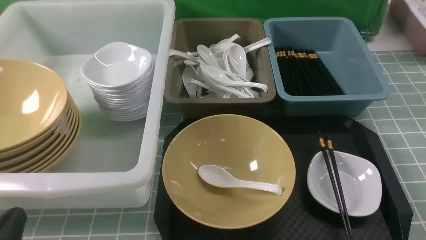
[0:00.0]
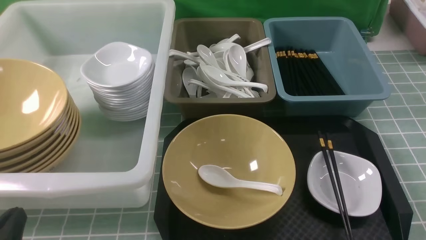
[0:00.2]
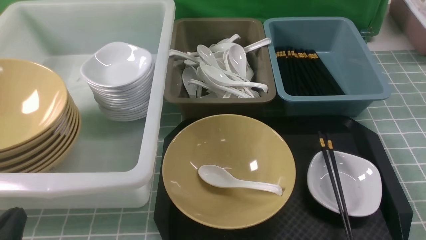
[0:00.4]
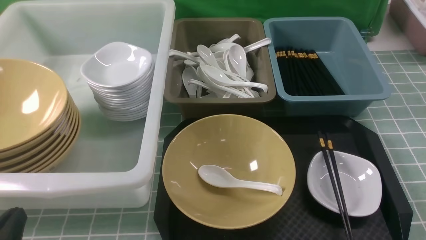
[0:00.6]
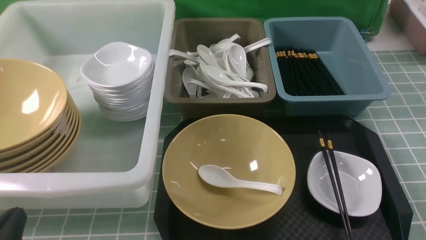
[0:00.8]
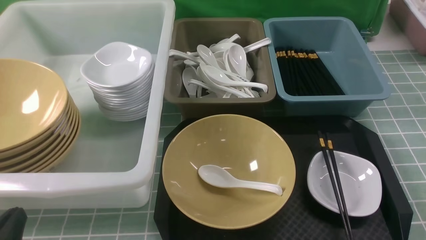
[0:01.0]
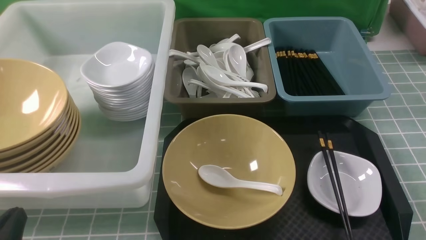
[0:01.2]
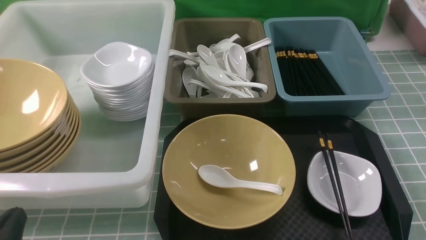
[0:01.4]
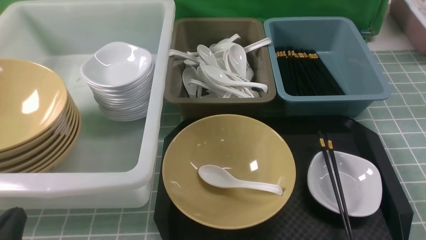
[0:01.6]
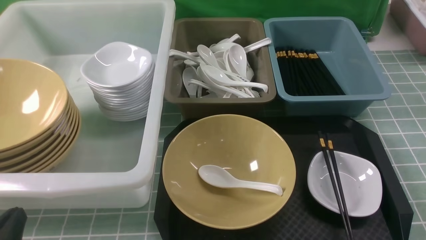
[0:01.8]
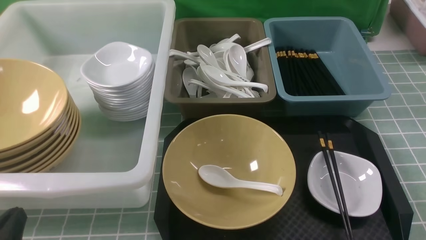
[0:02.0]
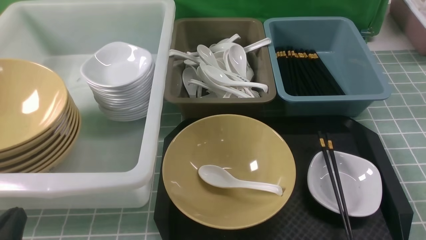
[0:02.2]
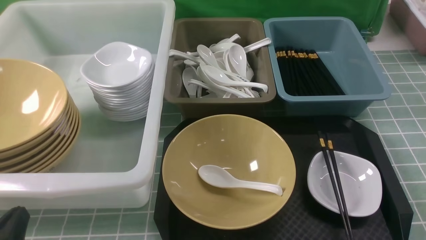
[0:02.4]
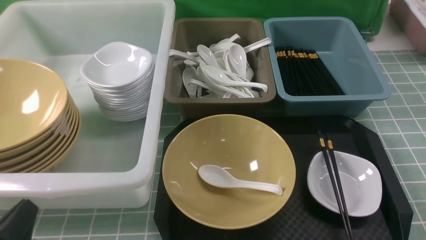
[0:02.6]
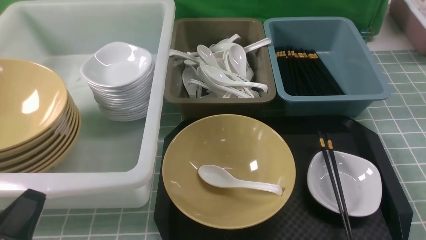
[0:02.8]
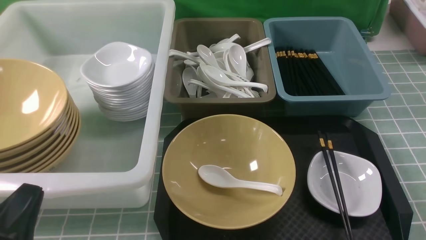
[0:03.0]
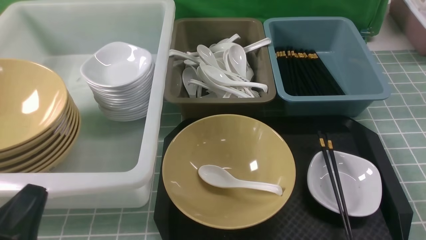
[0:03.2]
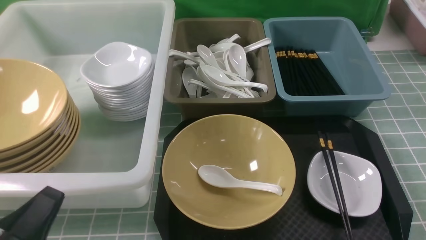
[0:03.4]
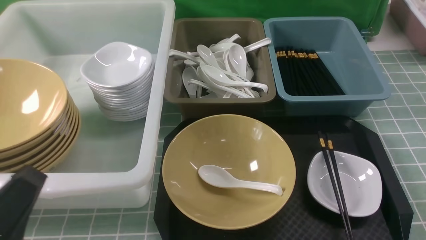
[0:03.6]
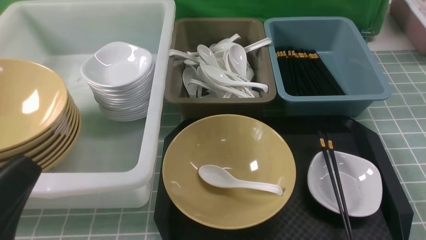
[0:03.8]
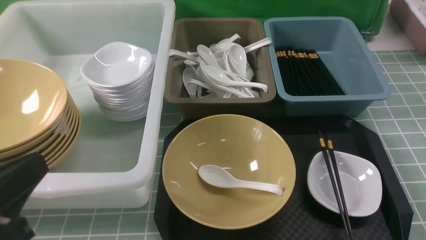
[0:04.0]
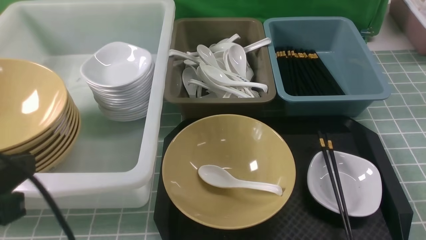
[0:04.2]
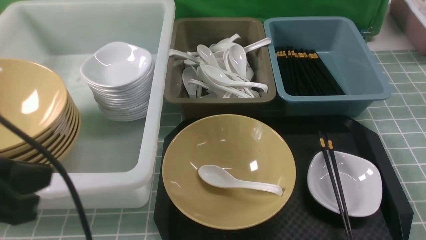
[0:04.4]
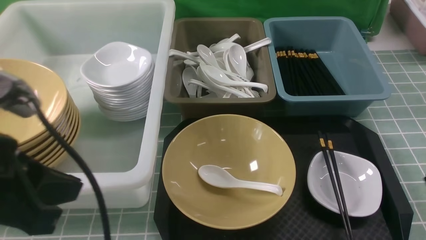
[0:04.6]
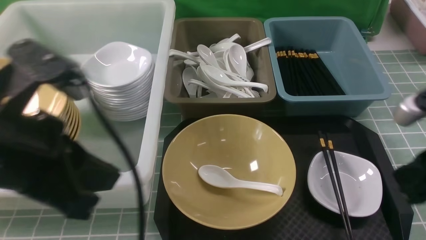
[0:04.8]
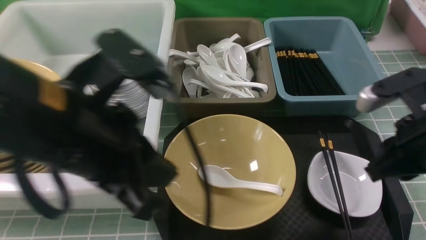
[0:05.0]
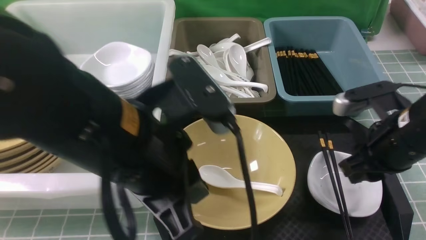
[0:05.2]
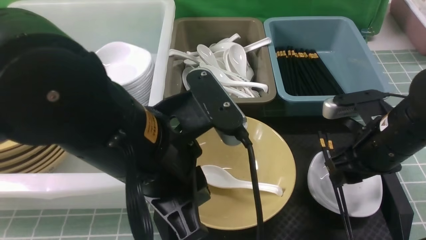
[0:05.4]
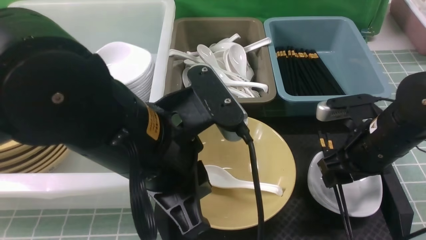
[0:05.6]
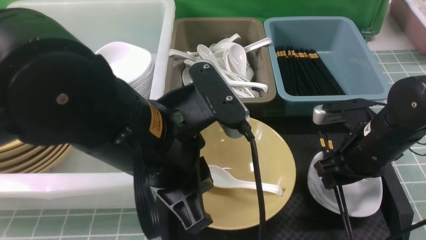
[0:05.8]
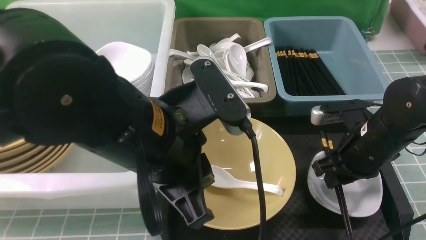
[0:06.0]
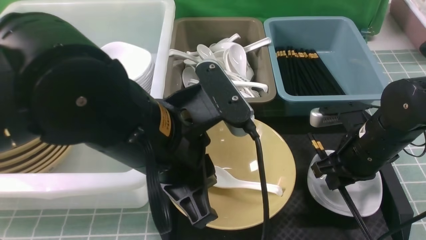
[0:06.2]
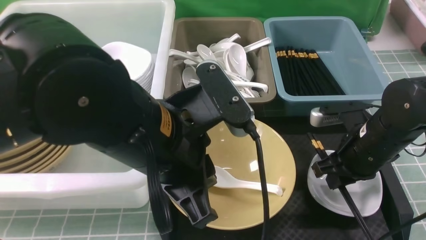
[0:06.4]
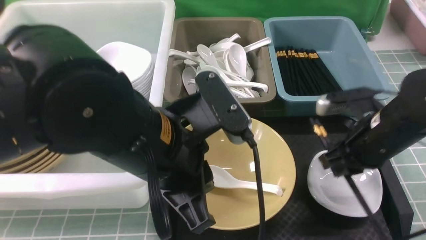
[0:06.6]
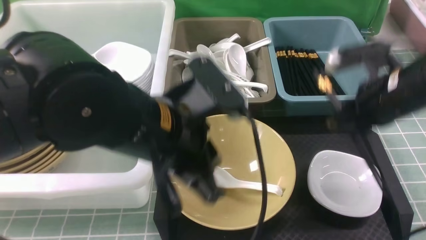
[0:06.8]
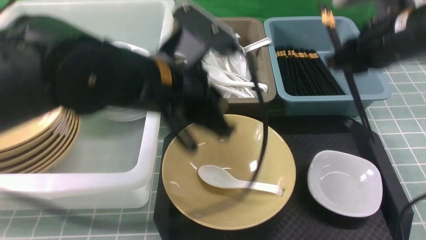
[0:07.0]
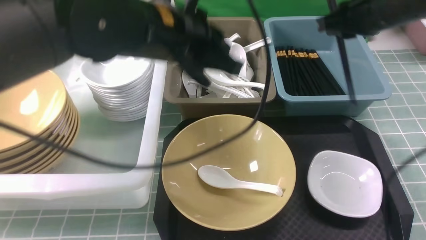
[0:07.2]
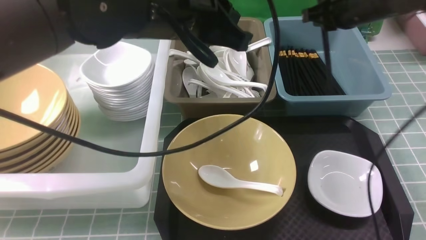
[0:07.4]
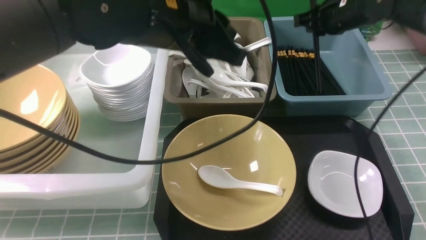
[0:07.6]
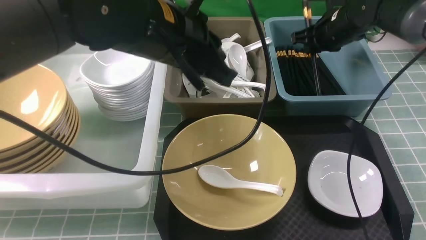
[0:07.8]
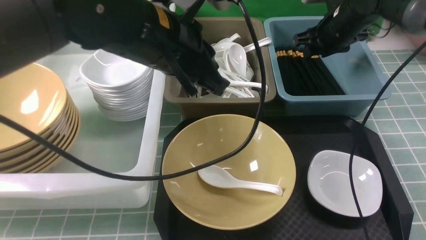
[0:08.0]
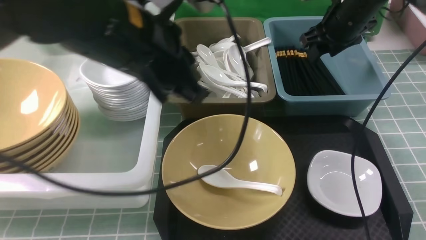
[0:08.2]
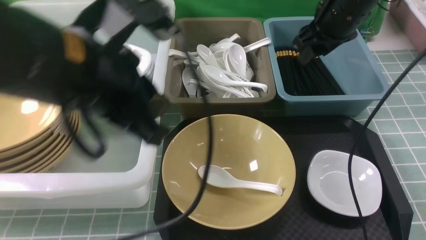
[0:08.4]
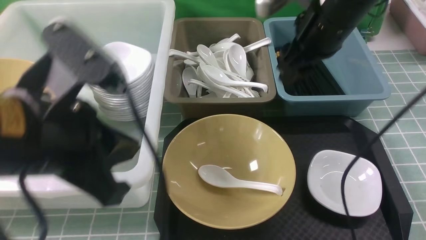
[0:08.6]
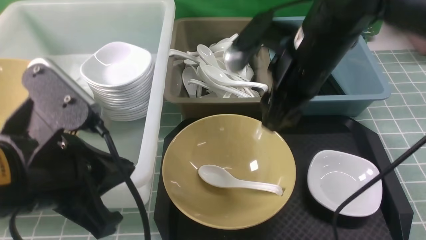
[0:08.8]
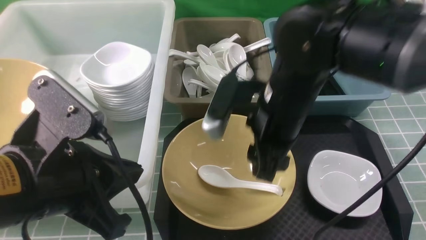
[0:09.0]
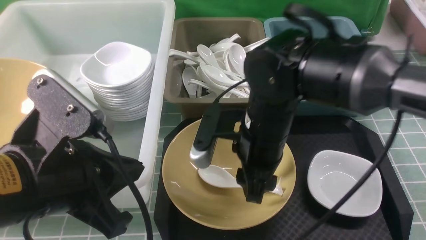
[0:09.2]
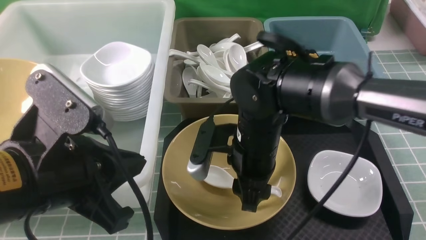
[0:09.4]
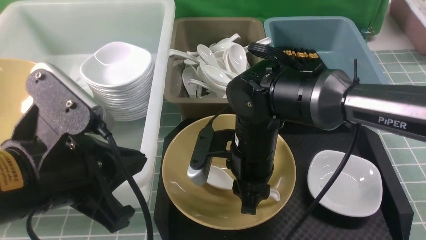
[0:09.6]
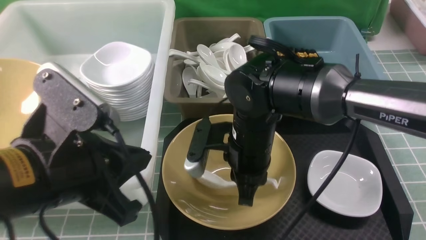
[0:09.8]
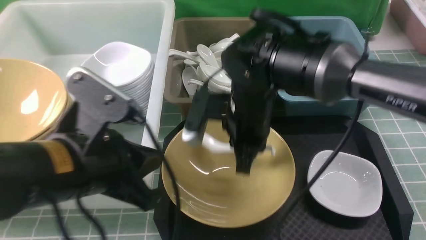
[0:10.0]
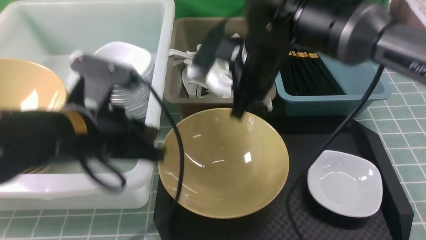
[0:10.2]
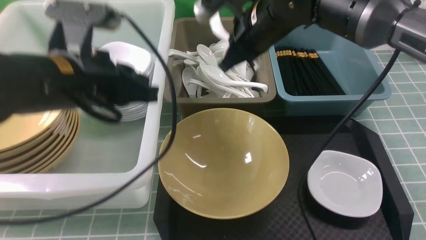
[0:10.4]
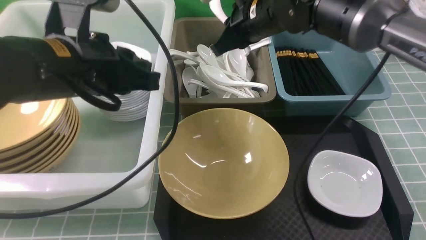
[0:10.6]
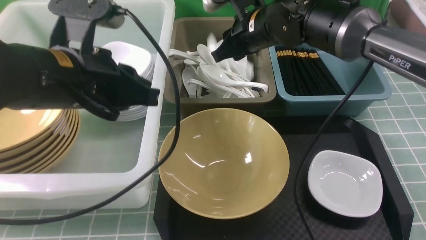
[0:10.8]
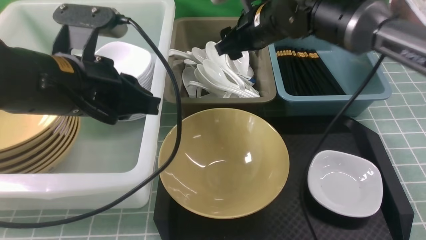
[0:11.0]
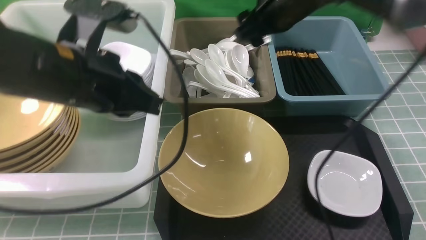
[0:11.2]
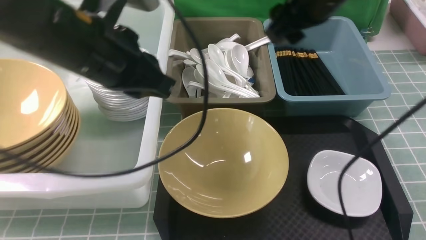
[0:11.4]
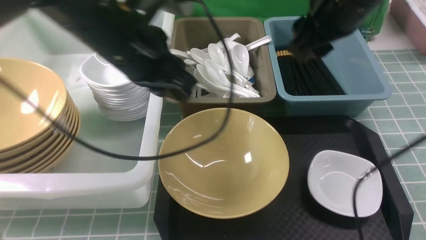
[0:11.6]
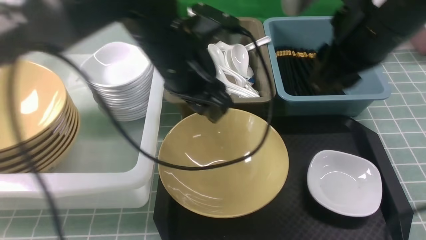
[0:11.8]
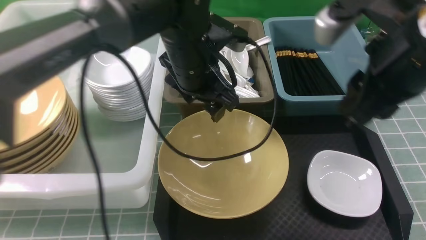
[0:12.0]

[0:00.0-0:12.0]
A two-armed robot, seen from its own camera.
Task of the whole recording: on blue table put chopsticks spoon bowls plates into blue grey white boxes.
Step, 0:00.0 to 0:06.4: use the right arm to grab the chopsticks.
Step, 0:06.6 to 0:08.0: use the right arm to put the chopsticks into the small storage box on the right.
Step, 0:08.2 to 0:09.8: use the right arm to grab the soup spoon in the middle.
Step, 0:10.2 to 0:10.8: use the right arm to put the soup spoon into the small storage box in the middle.
0:00.0 to 0:01.6: Neither gripper changes place.
0:03.0 to 0:04.4: The left gripper is displaced upward by some 15 cm.
0:04.4 to 0:06.0: The left gripper goes roughly 15 cm to the right. Meanwhile the right gripper shifts some 20 cm forward and downward, and opens up.
0:06.0 to 0:07.6: The right gripper goes roughly 20 cm forward and upward, while the left gripper shifts roughly 10 cm forward.
0:07.6 to 0:09.0: The grippers both shift backward and to the left by about 20 cm. The right gripper opens up.
0:09.0 to 0:10.4: Both grippers move forward, roughly 10 cm. The right gripper closes up.
0:10.4 to 0:12.0: The left gripper goes about 15 cm to the right and forward, and opens; the right gripper heads backward, to the right and upward, covering about 20 cm, and opens up.

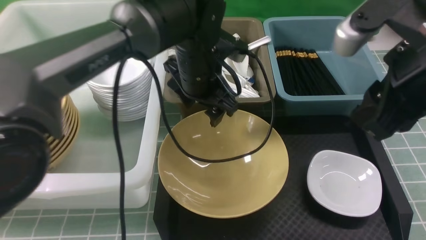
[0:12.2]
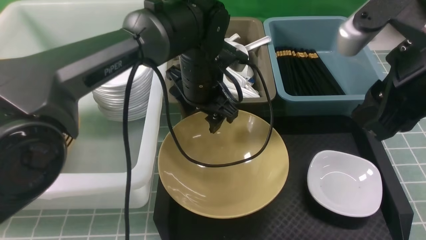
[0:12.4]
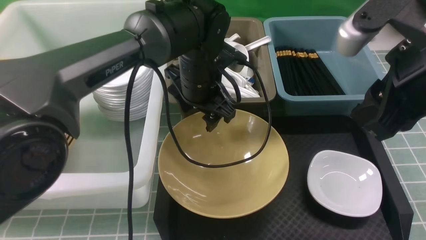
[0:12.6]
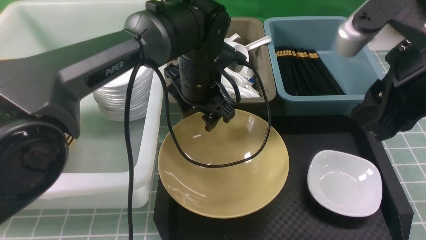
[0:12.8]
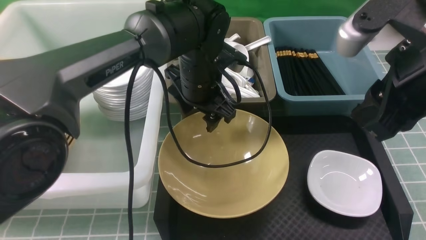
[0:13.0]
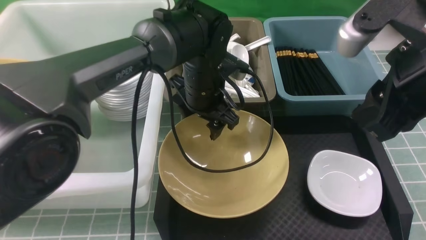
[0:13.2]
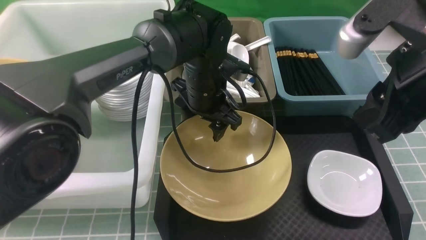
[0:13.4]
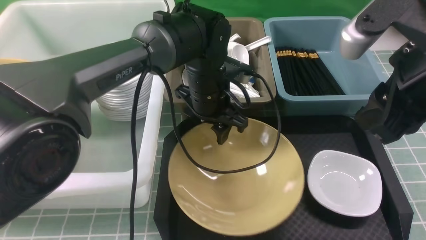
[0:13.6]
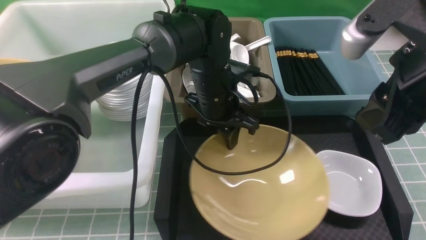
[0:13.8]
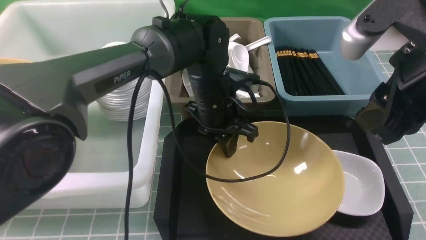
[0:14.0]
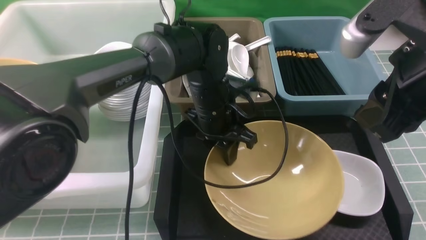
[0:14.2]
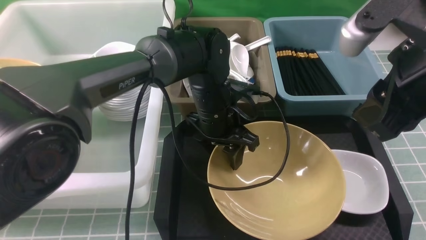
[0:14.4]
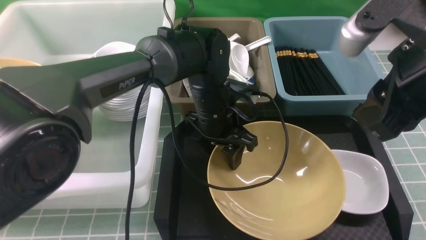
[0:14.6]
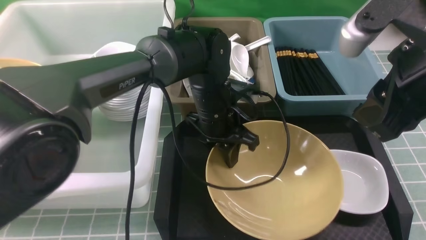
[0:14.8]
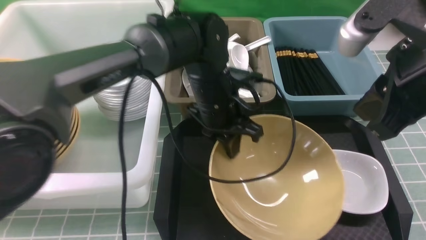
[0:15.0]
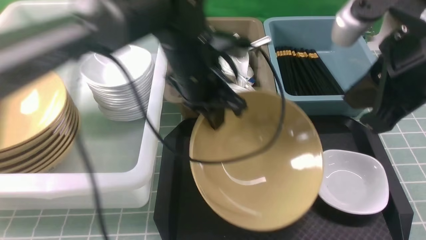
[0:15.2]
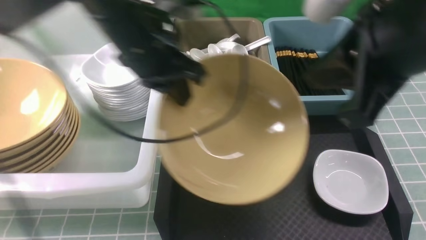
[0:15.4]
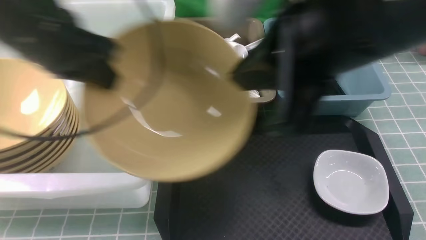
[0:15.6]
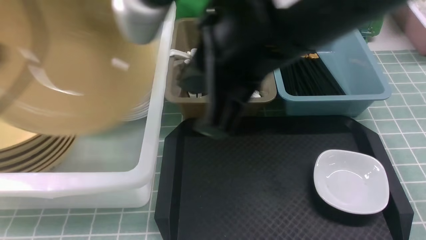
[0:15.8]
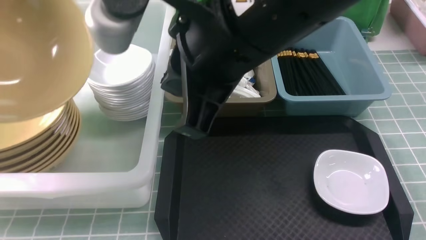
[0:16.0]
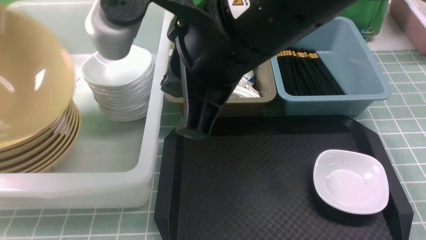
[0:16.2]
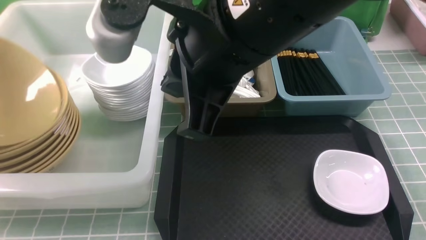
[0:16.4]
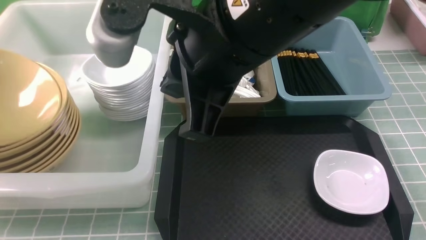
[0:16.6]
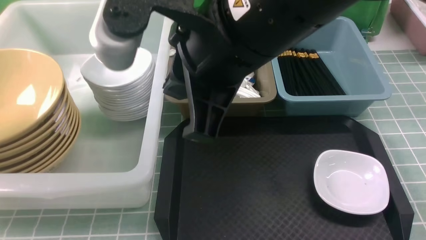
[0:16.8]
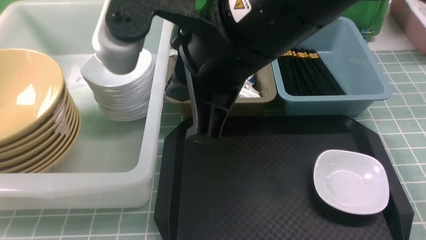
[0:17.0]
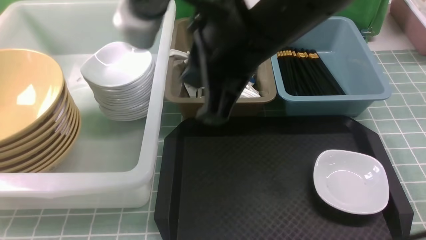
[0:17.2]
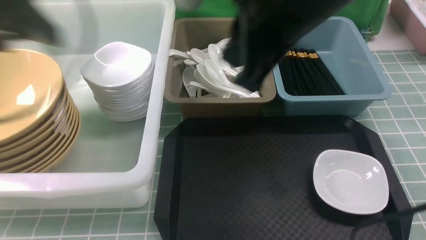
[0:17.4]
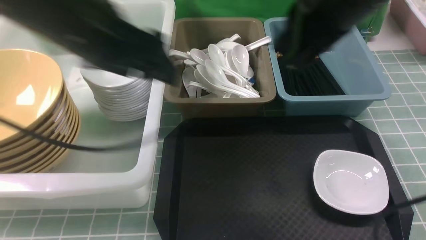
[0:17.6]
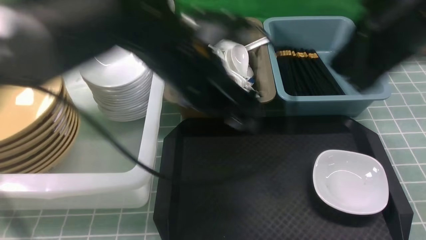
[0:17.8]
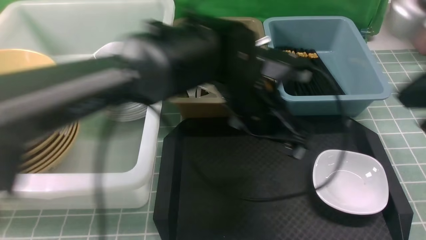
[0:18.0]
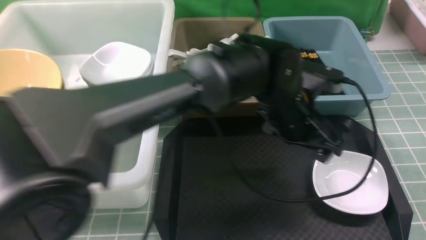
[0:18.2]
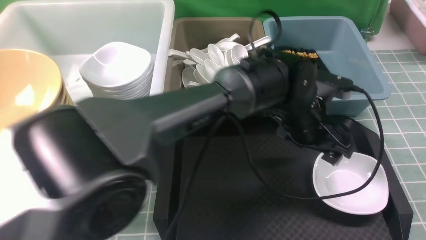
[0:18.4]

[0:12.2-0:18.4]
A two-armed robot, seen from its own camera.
Task of the whole recording: on blue table put chopsticks spoon bowls plates into blue grey white boxes.
Step, 0:12.2 to 0:15.2: use the left arm to grab the yellow noodle bowl on the left.
Step, 0:15.4 to 0:17.0: use the left arm to put the noodle bowl into the large storage box on the left.
0:12.2 to 0:13.8: The left gripper changes place by about 5 cm, and closes.
0:13.8 to 0:15.4: The right gripper goes about 5 cm to the left, and closes up; the left gripper moves upward and to the left, some 20 cm.
0:15.4 to 0:16.8: The left gripper is displaced to the left by roughly 30 cm, and opens up; the right gripper goes approximately 10 cm to the left.
0:16.8 to 0:18.4: The right gripper heads to the right, covering some 25 cm; the left gripper goes about 50 cm to the right.
